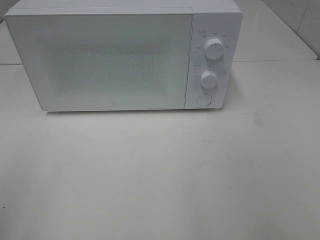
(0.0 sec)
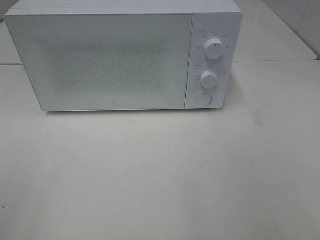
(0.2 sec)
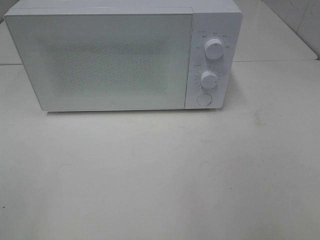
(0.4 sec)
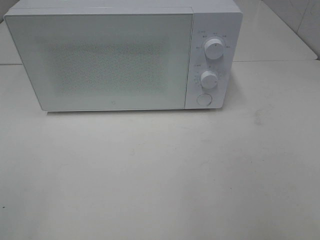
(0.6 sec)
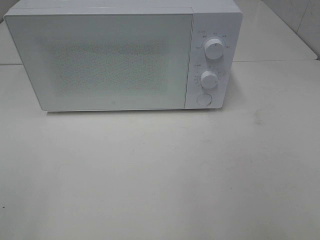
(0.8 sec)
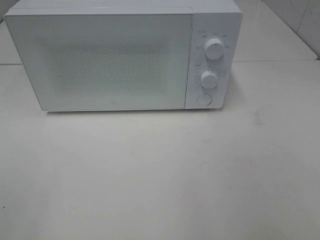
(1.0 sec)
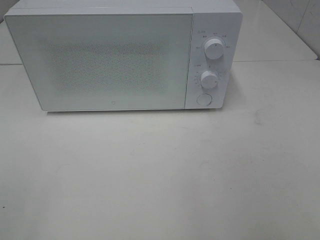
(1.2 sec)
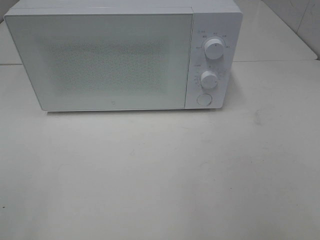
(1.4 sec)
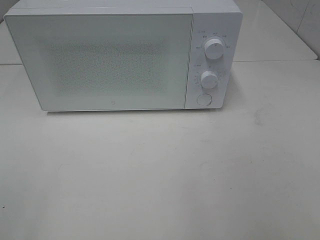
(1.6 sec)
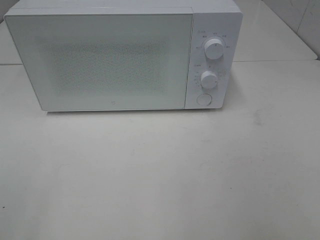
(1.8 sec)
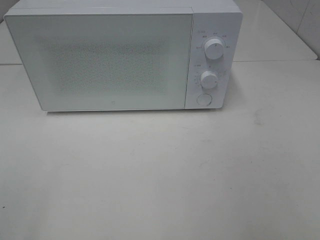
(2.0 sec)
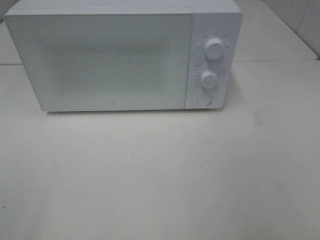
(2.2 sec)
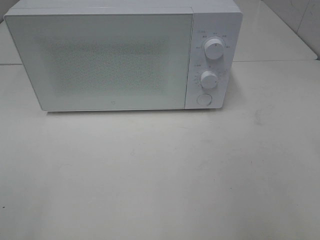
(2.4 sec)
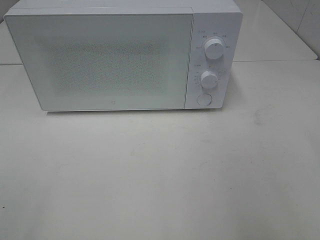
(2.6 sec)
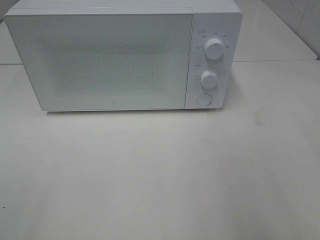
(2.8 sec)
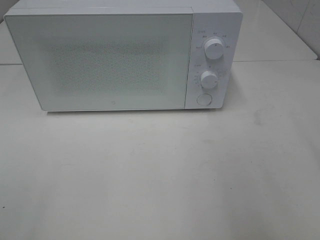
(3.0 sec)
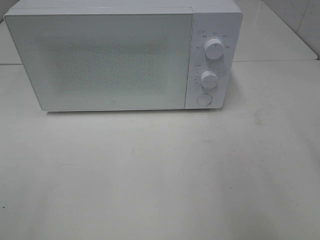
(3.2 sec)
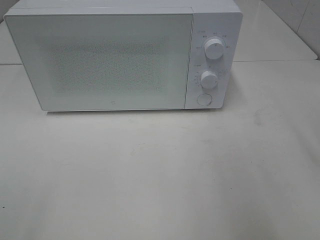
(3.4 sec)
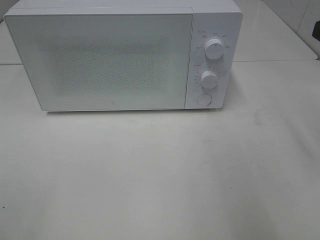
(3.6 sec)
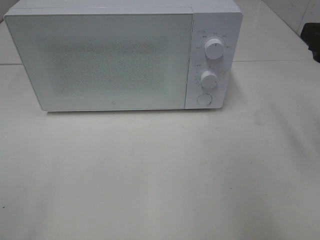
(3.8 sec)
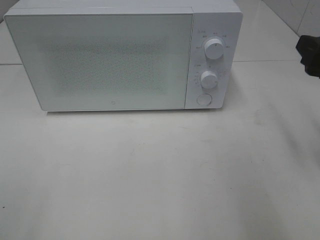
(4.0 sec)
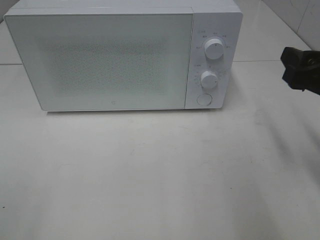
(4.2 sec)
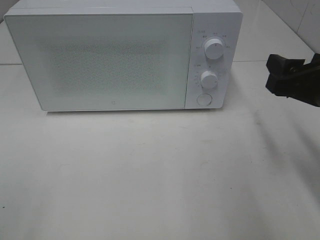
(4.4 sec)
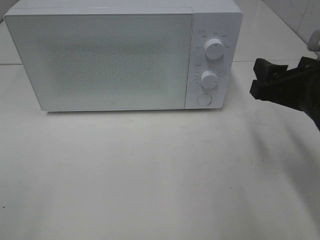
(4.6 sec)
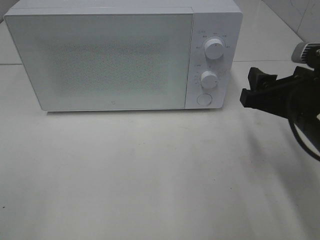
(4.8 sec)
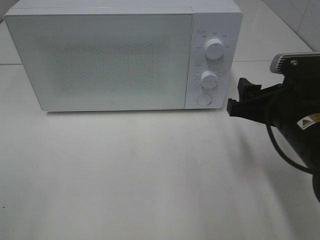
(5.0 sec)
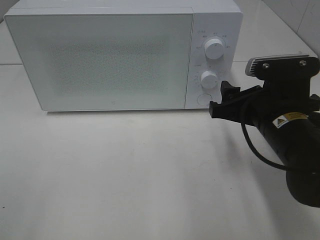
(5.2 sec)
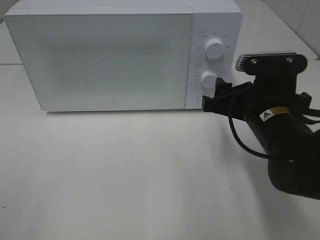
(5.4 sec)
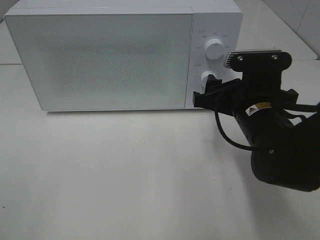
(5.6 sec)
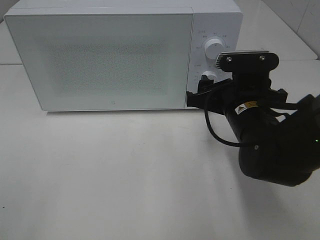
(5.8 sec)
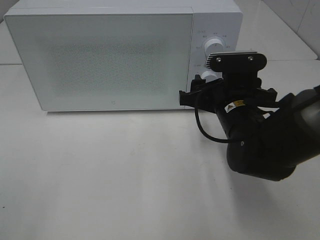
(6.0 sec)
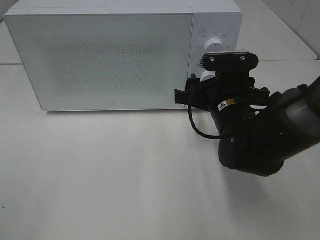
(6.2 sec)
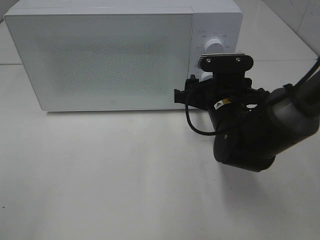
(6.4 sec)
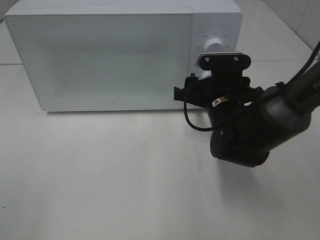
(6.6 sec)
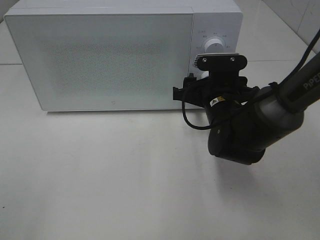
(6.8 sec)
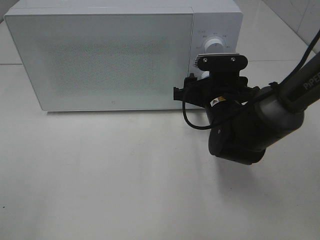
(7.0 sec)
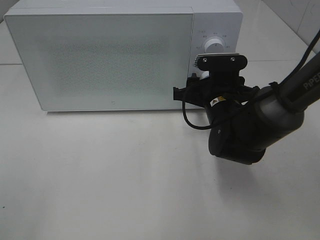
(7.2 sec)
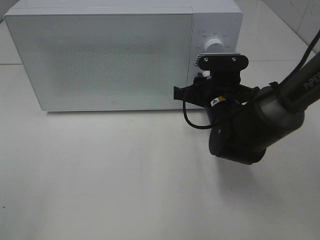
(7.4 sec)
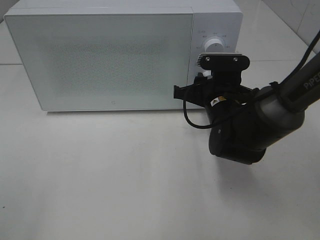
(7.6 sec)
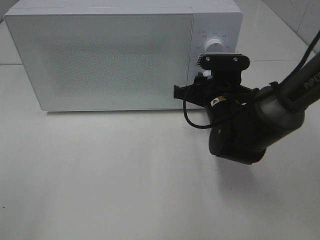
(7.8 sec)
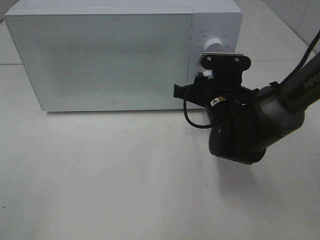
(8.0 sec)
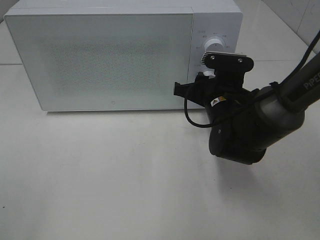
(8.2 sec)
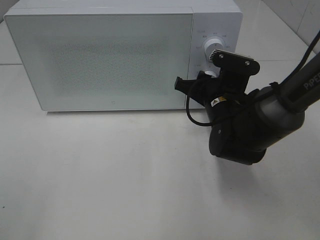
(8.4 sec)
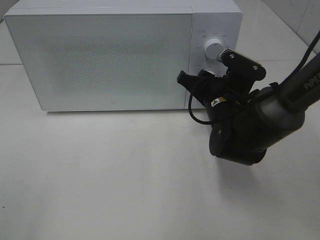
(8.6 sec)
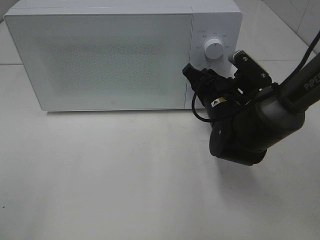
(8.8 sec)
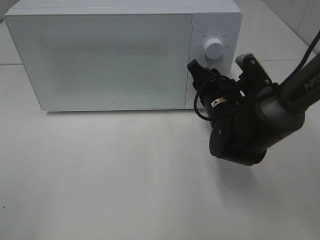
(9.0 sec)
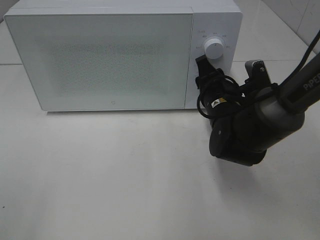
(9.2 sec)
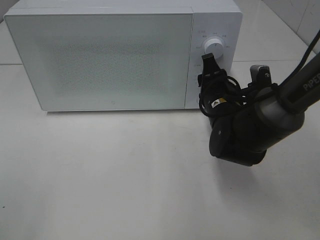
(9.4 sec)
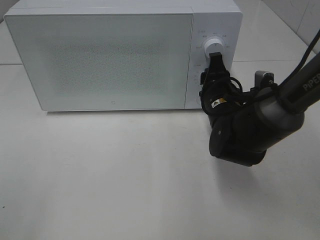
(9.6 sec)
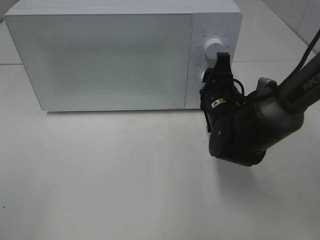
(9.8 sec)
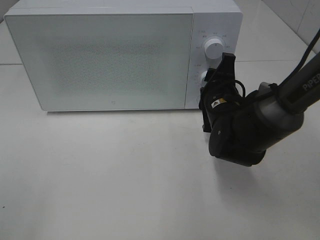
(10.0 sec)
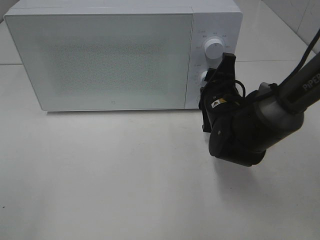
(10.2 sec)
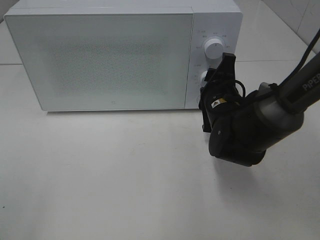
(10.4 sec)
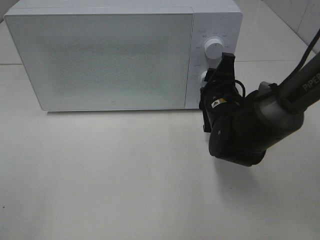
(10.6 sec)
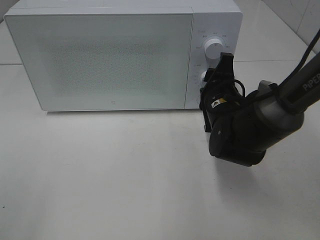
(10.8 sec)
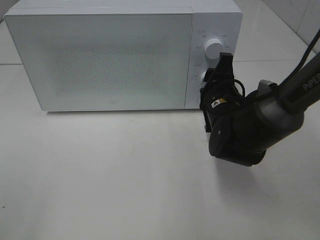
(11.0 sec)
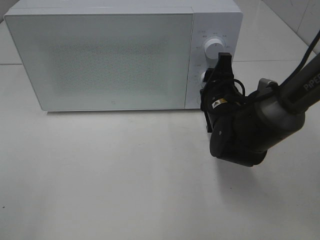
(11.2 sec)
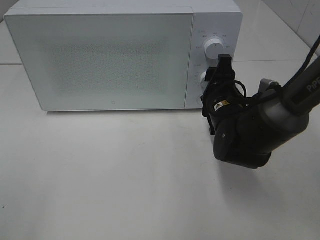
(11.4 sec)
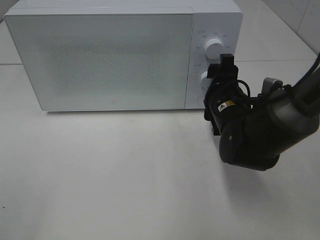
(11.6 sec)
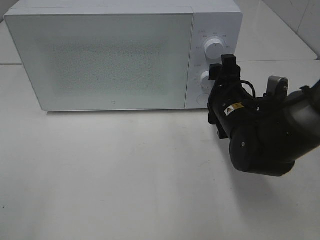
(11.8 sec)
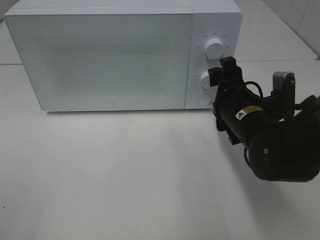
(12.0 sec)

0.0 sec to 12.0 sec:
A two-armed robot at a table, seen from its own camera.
Task of the whole recording: Heat the burger.
Step, 0.0 sec to 11.4 sec: Right hand: twist timer button.
3.0 sec to 4.4 sec: The right gripper moves downward and forward, some 10 cm.
4.4 sec to 6.0 sec: The right gripper is displaced to the left, downward and forward by about 15 cm.
6.0 sec to 7.6 sec: The right gripper ends up roughly 5 cm from where it was.
10.4 sec to 12.0 sec: The right gripper goes about 5 cm backward.

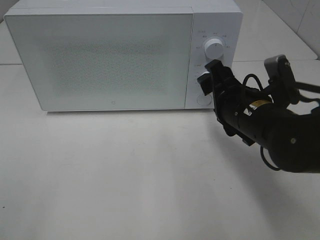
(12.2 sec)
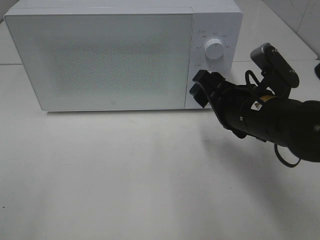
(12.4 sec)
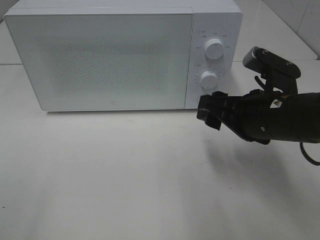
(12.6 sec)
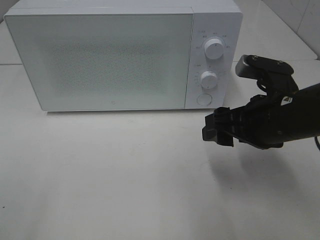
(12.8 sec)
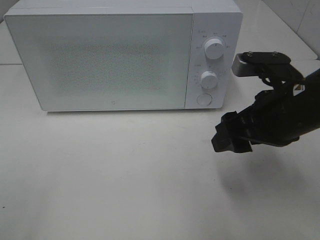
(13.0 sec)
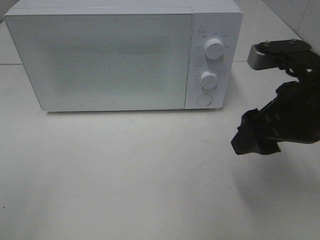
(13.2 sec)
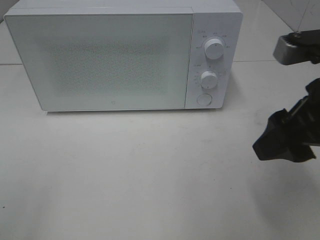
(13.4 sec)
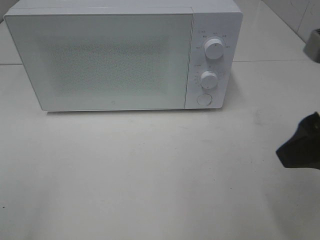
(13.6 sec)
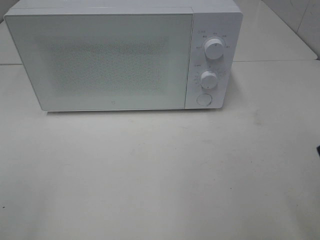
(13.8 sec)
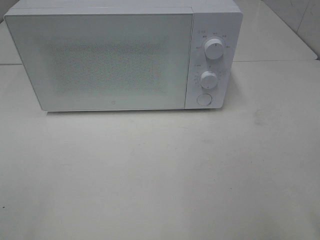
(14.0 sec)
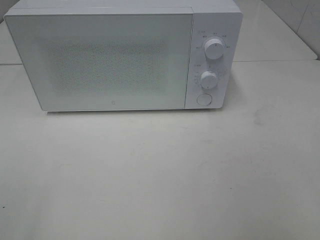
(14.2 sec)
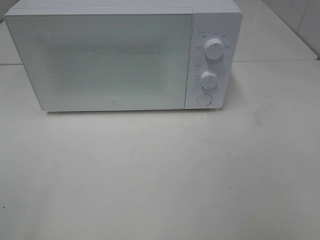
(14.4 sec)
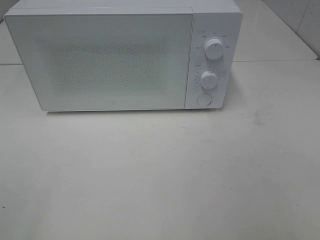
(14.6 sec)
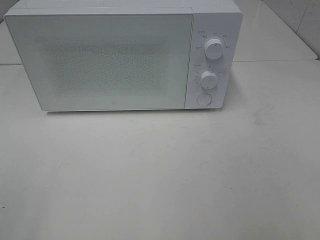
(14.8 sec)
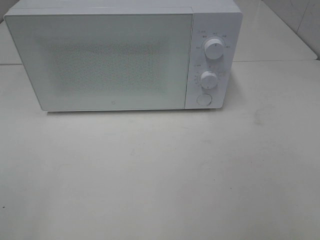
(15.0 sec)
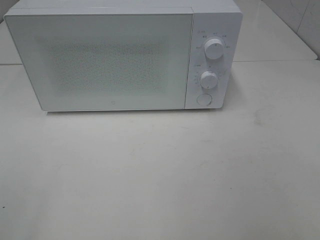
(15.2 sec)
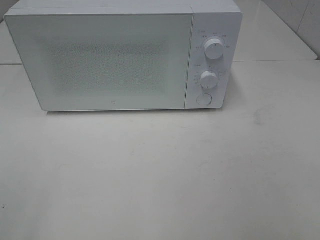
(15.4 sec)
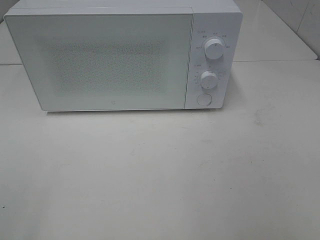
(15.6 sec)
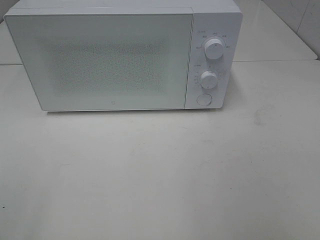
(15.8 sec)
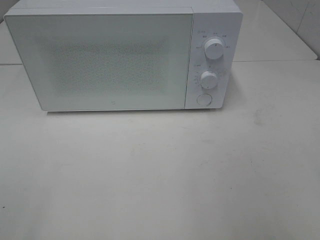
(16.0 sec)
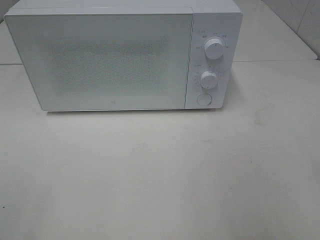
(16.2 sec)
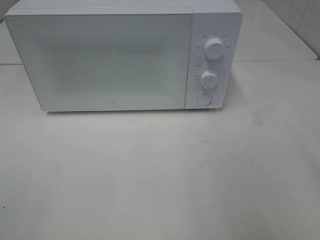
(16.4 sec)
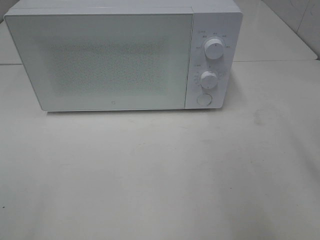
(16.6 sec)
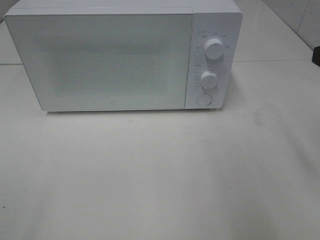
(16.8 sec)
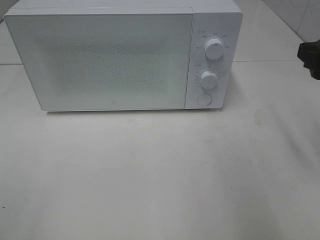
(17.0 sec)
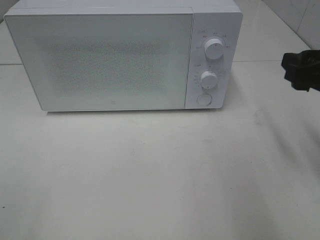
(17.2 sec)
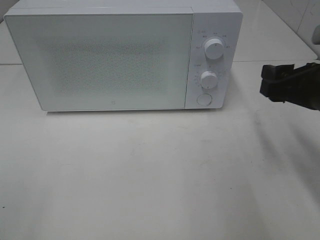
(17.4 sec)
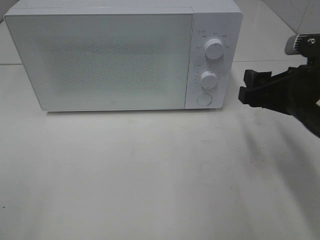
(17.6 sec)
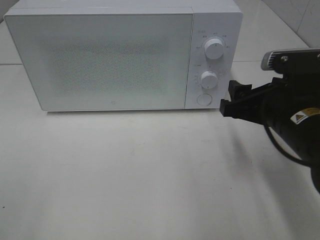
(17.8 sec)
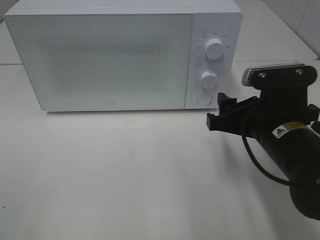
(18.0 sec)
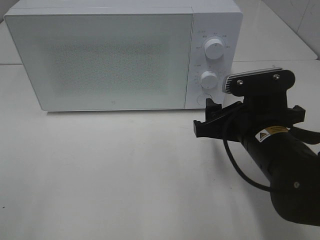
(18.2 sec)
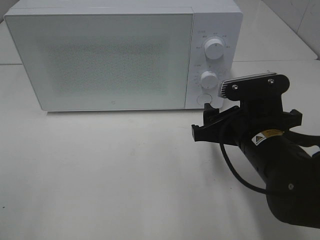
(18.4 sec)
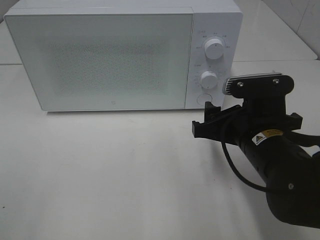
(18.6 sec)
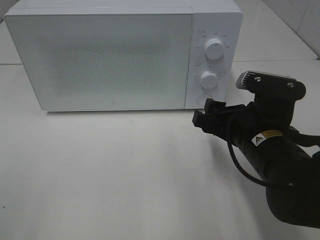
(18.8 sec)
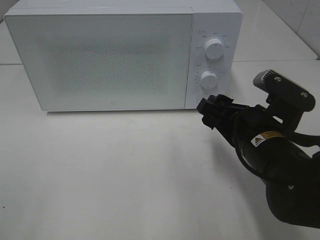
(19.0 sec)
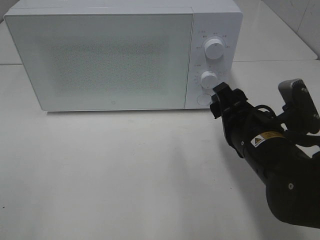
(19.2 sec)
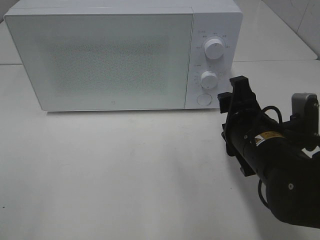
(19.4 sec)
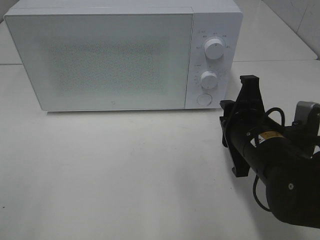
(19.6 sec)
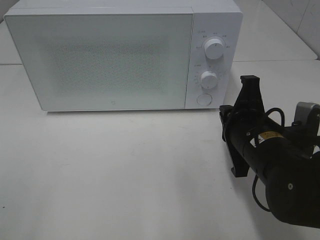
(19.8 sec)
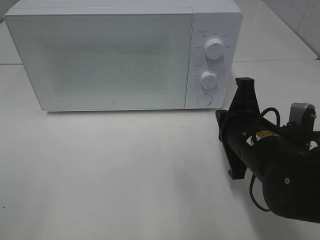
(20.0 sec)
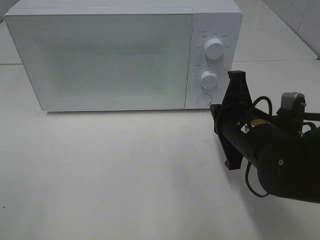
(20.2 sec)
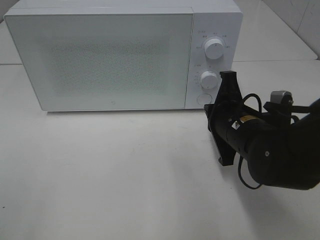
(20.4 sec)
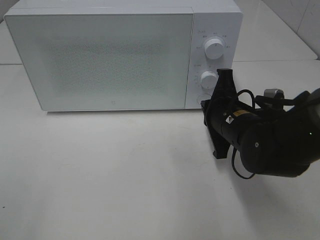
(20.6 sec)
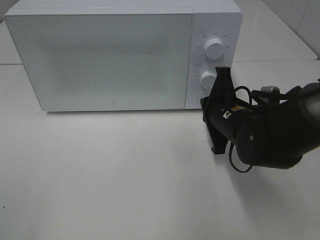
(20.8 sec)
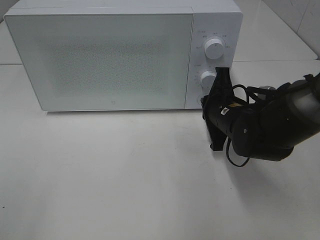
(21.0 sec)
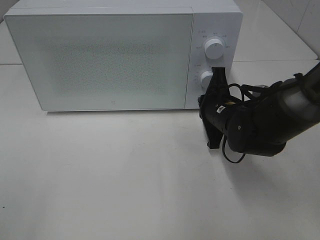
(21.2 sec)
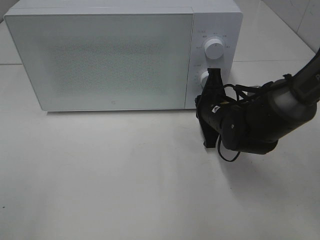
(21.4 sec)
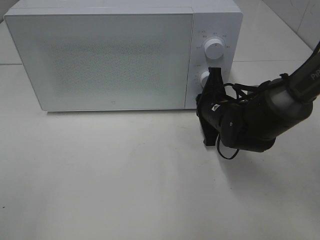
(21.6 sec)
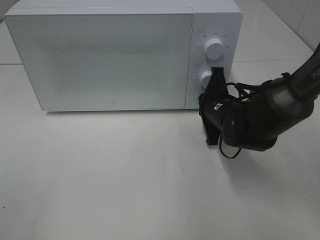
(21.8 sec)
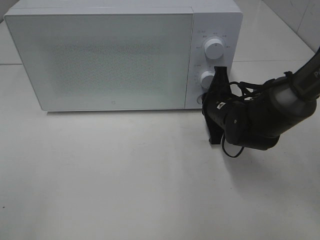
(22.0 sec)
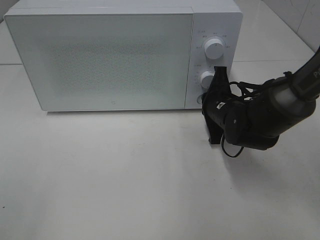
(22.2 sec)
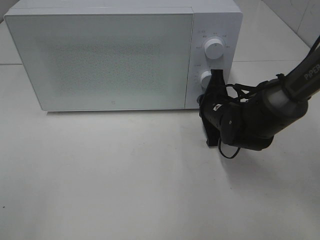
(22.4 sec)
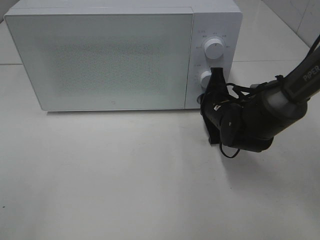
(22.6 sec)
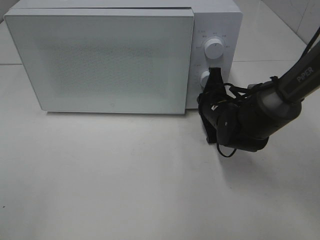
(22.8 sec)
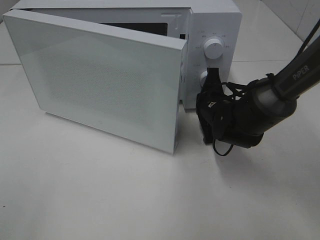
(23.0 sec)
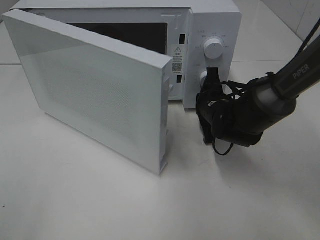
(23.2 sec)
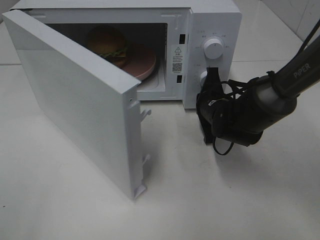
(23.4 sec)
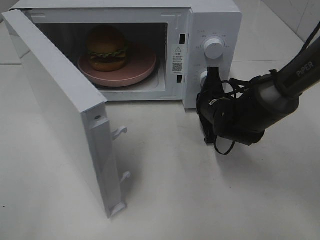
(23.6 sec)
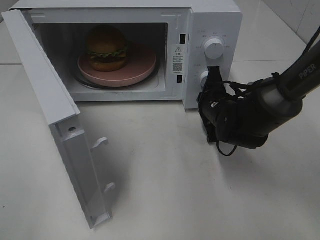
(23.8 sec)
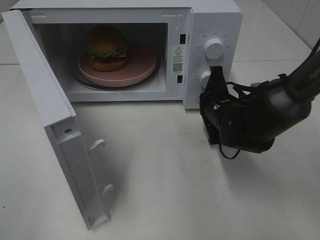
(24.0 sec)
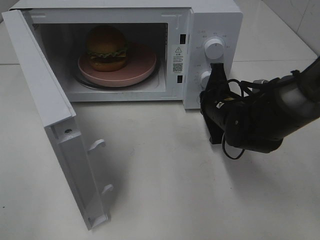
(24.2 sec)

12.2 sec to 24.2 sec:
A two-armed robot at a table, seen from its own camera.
Task of the whole recording: Heat the burger.
12.2 sec to 13.8 sec: The right gripper heads backward, upward and to the right, covering about 25 cm.
16.6 sec to 18.2 sec: The right gripper is displaced downward and to the left by about 20 cm.
18.2 sec to 19.8 sec: The right gripper closes.
19.8 sec to 21.2 sec: The right gripper moves forward, about 10 cm.
21.2 sec to 22.6 sec: The grippers stay close to where they were, moving slightly.
